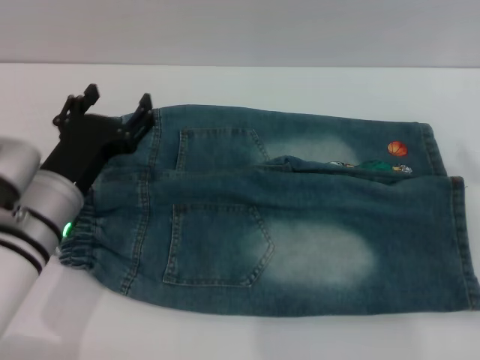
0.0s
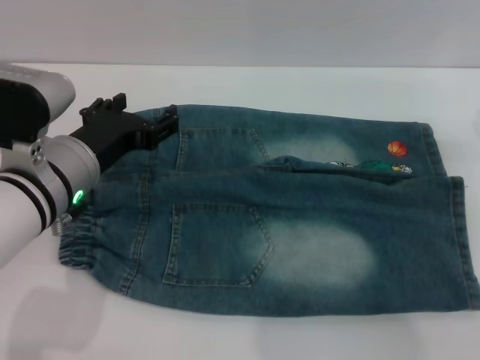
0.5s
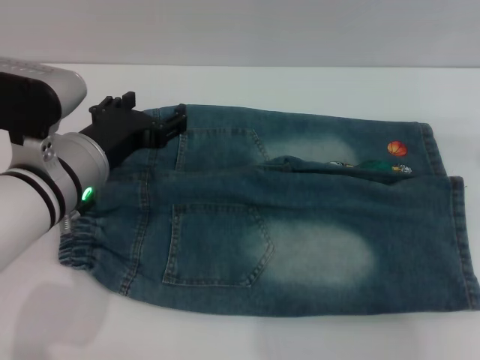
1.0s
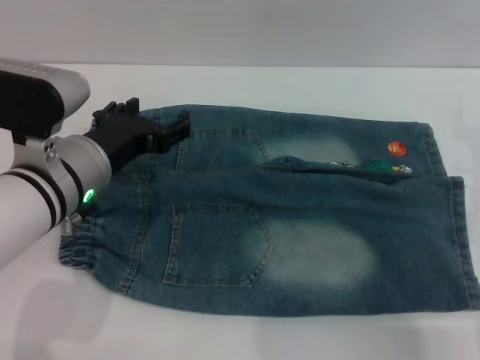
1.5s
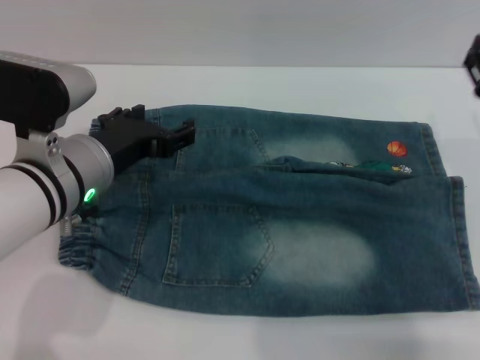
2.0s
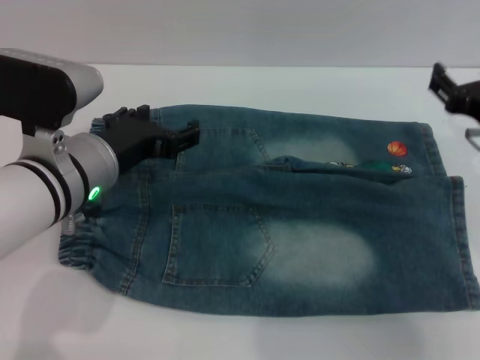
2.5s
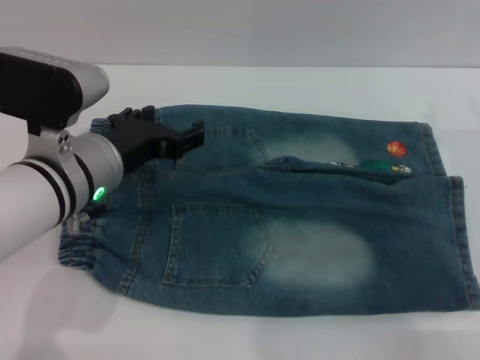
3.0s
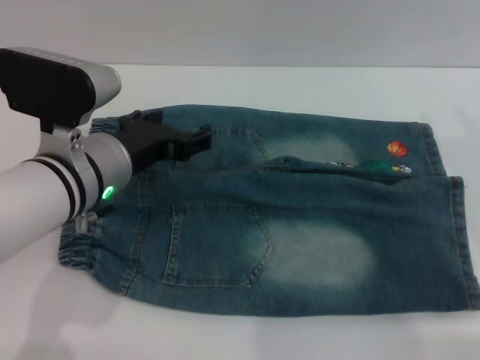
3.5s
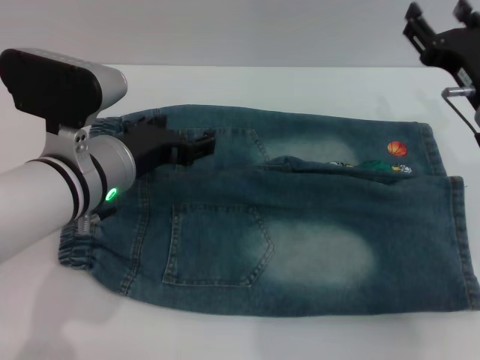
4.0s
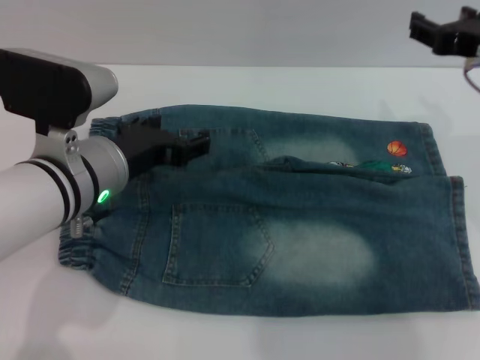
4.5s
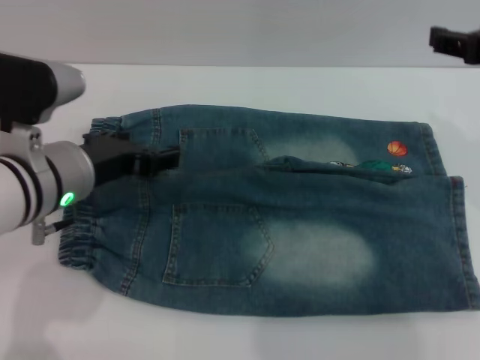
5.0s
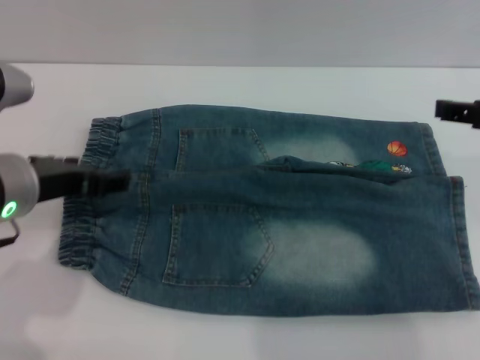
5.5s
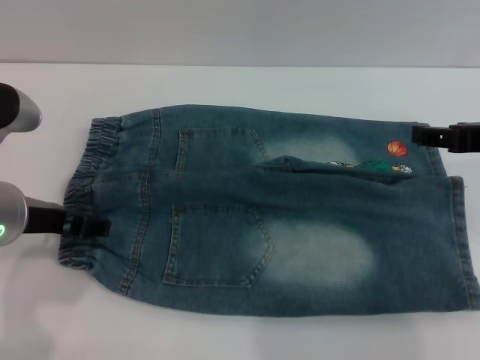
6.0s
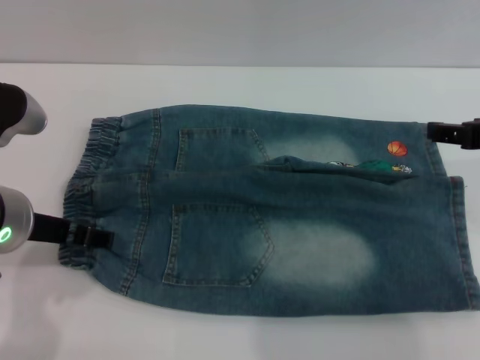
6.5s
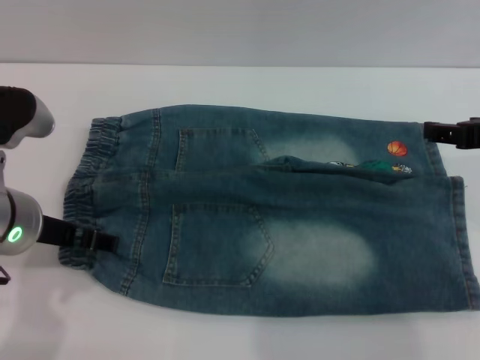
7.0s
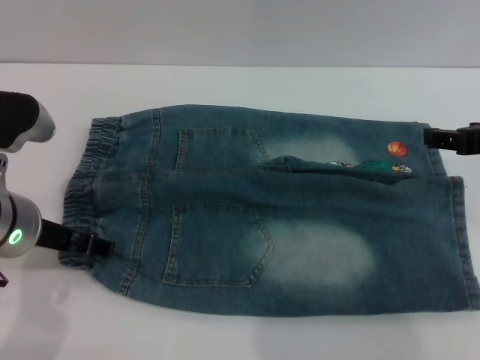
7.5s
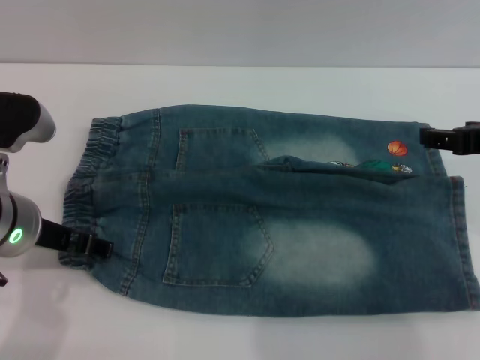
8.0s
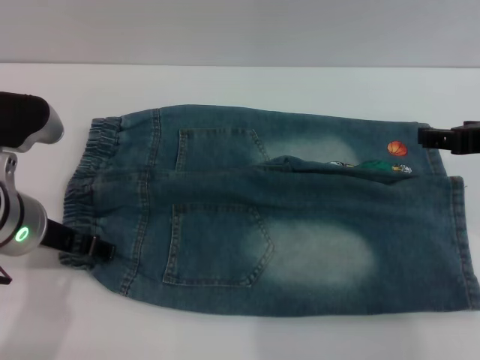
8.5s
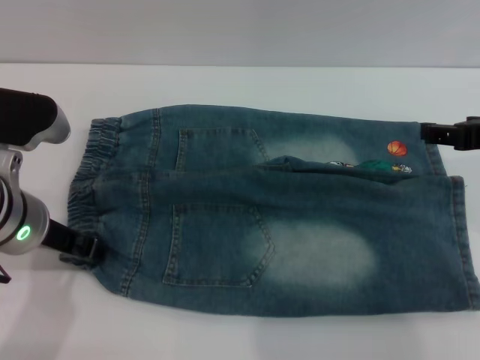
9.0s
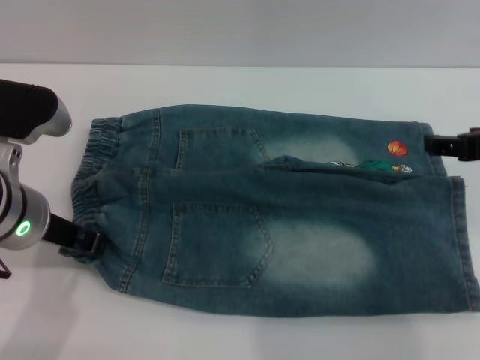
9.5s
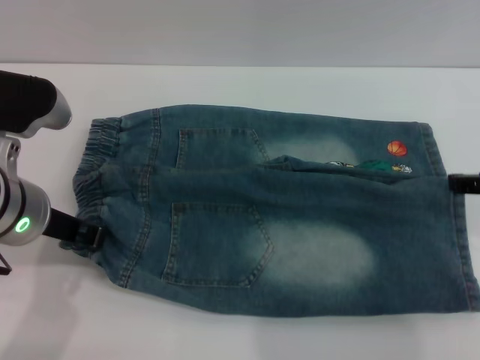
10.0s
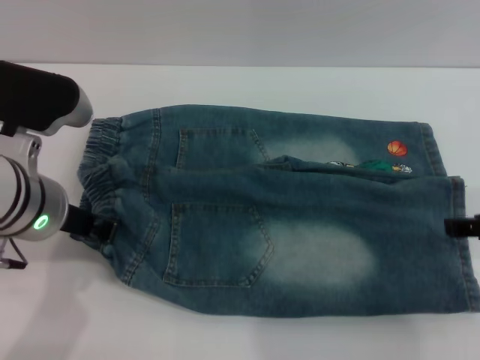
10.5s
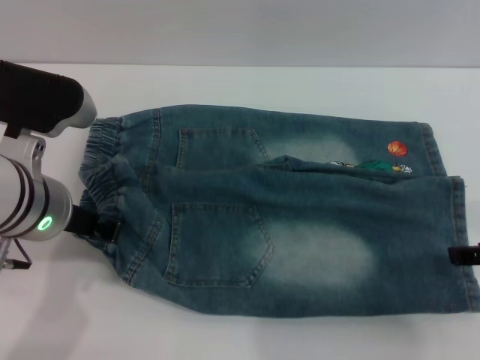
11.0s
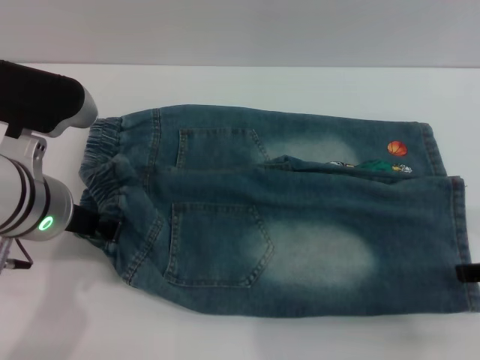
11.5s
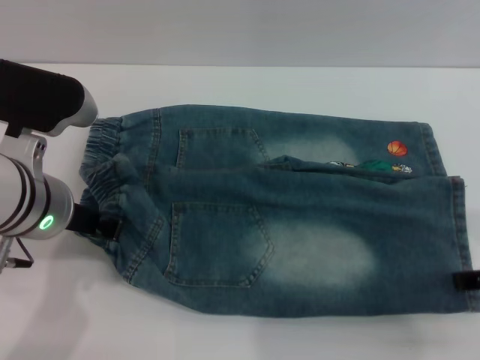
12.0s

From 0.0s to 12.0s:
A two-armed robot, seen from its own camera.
From 0.0s to 2.0s: The left gripper heads upward, covering roughly 5 cm. The right gripper shifts approximately 10 cm to the left.
From 4.0s to 6.0s: The left gripper heads to the left, covering roughly 5 cm, while the right gripper is displaced upward and backward by about 10 cm.
From 6.0s to 8.0s: The grippers move only a little.
From 8.0s to 10.0s: The left gripper closes.
From 10.0s to 12.0s: The right gripper changes place by roughly 5 cm.

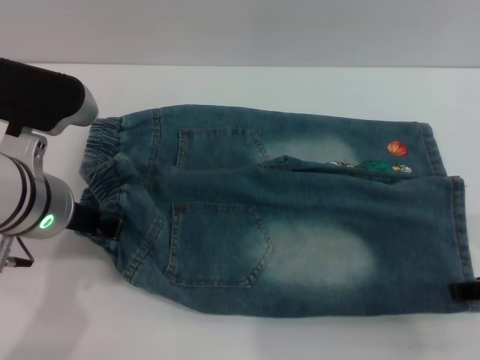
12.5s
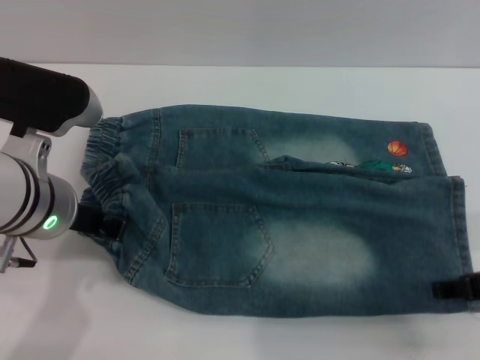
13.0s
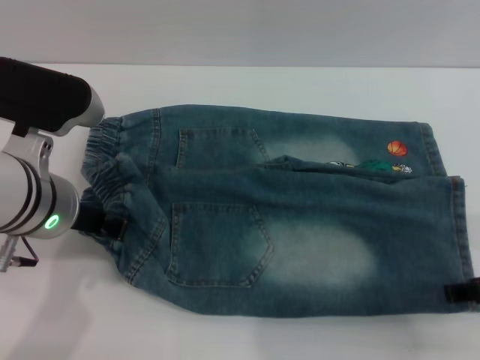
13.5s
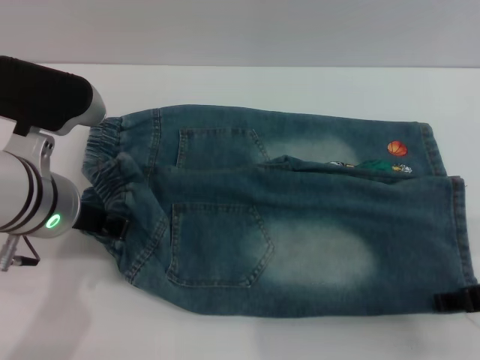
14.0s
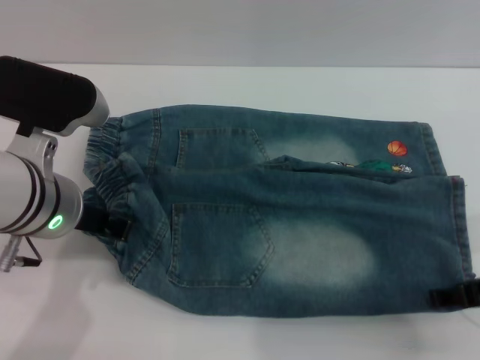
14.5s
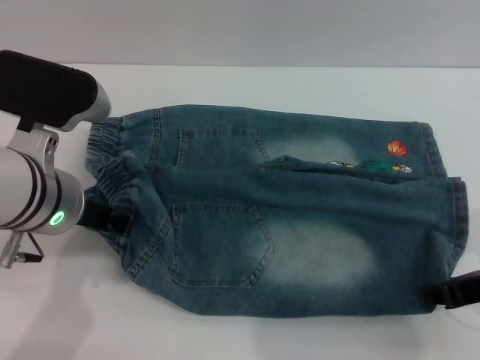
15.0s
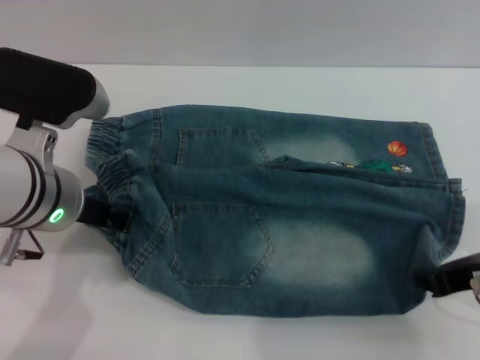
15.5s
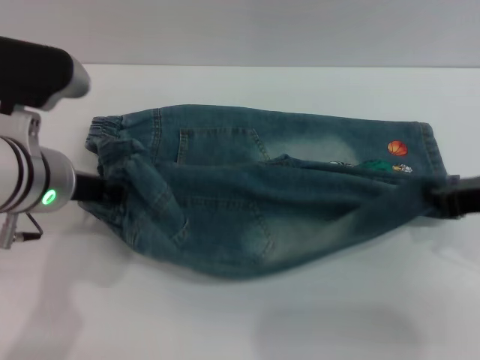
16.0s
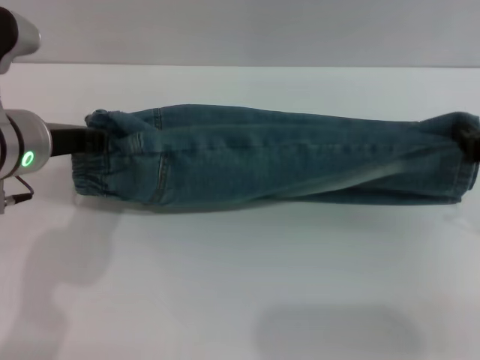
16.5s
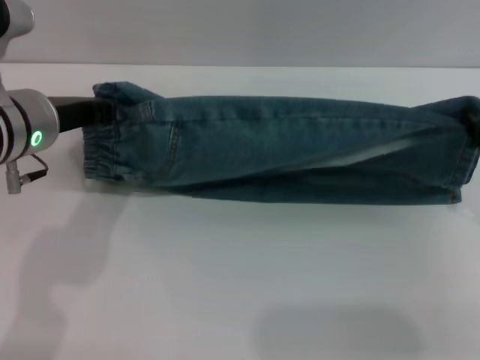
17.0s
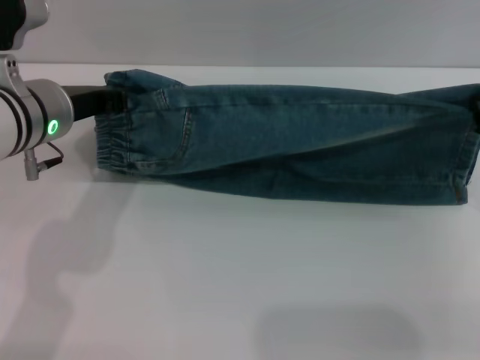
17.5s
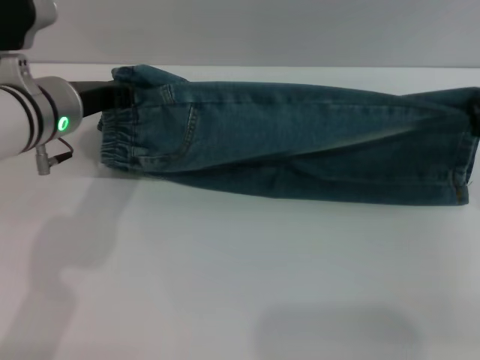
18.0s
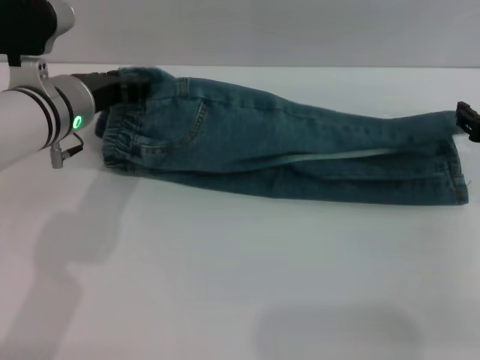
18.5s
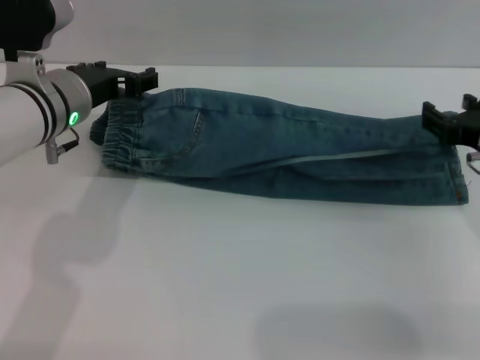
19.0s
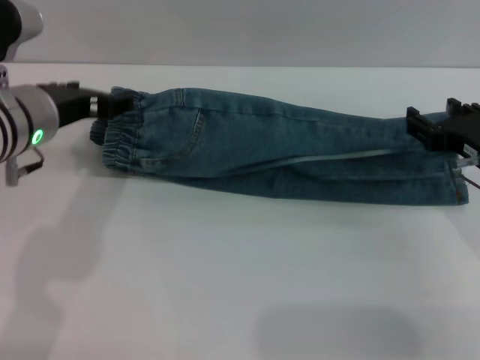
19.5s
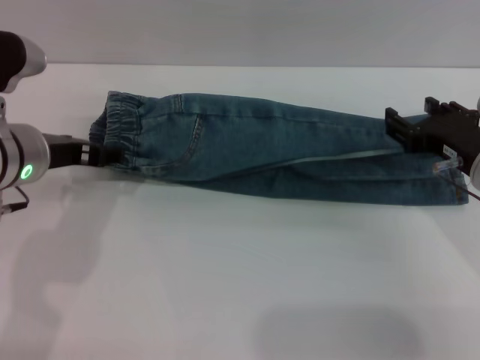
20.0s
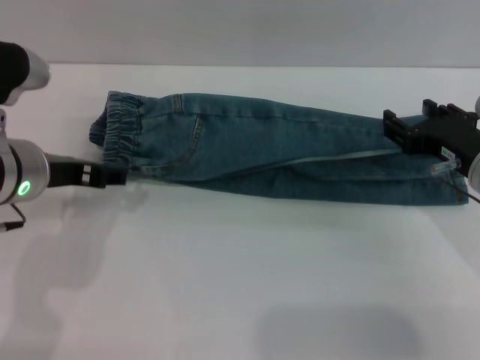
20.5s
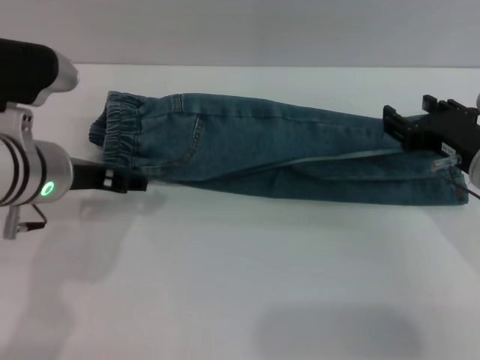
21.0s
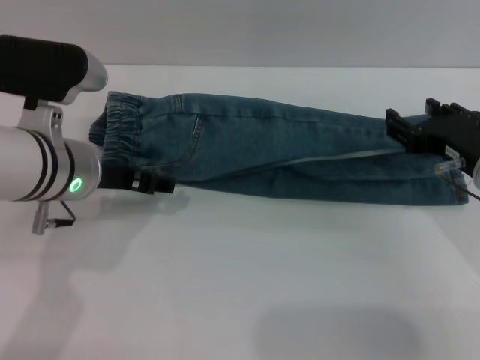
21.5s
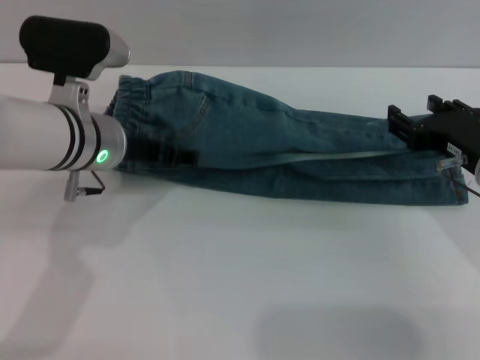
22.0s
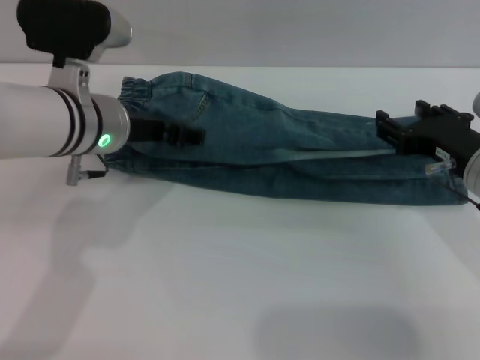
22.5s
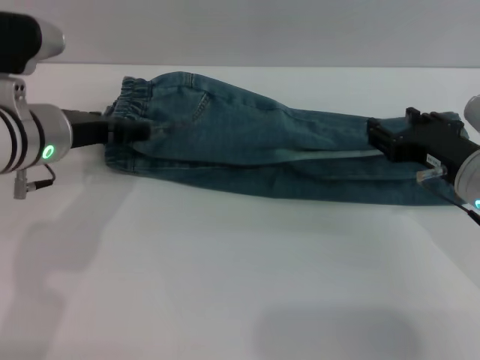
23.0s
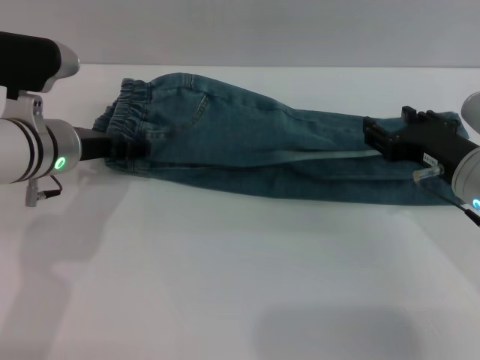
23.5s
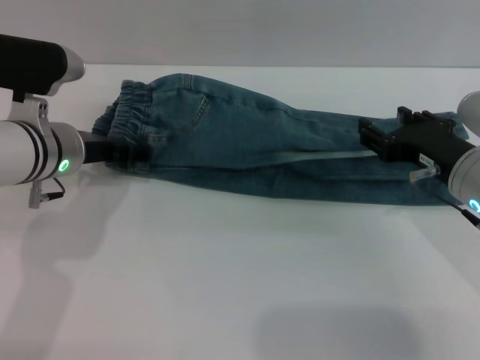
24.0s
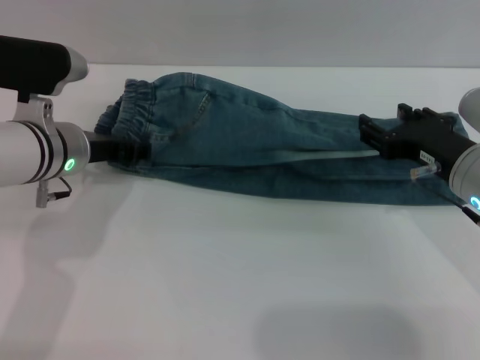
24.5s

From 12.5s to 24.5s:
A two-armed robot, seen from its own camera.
Step, from 12.5s to 19.0s: Fold the bottom of the pants upward with both grippers.
From 12.5s to 14.5s: There are only small adjustments of the grippers.
From 14.5s to 16.5s: The right gripper moves approximately 5 cm, and closes up.
From 16.5s to 18.5s: The left gripper moves forward, roughly 5 cm, and opens its fingers. The right gripper shifts some 5 cm downward.
From 18.5s to 20.5s: The right gripper goes some 5 cm to the left, and opens; the left gripper travels backward by some 5 cm, and opens.
From 20.5s to 22.5s: The left gripper travels forward and to the right by roughly 10 cm.
From 22.5s to 24.5s: The left gripper moves about 5 cm.

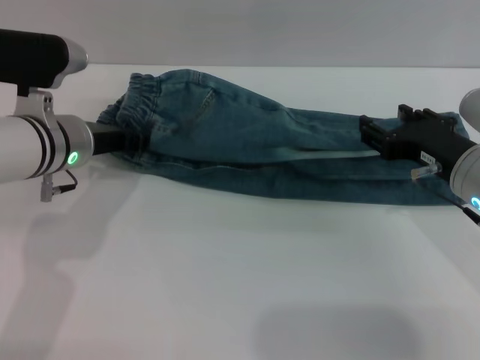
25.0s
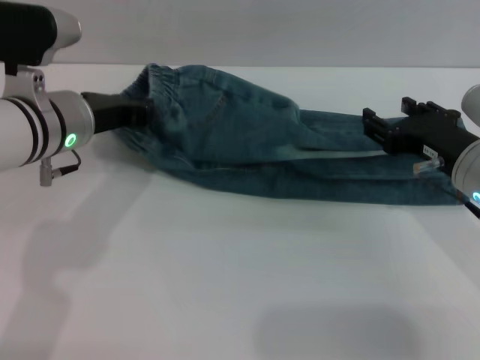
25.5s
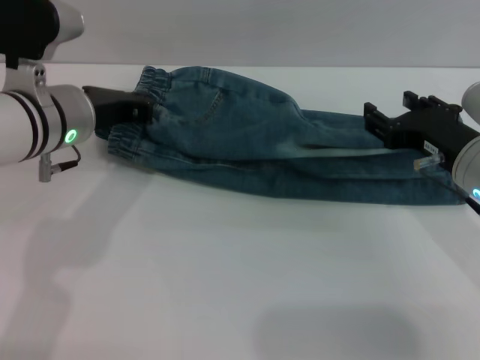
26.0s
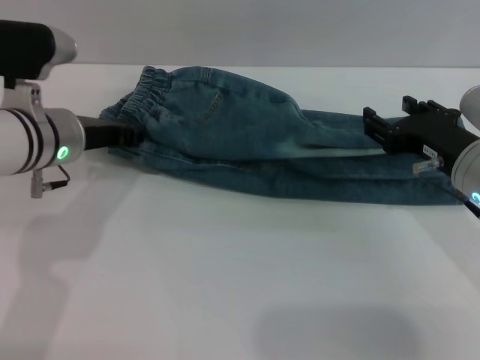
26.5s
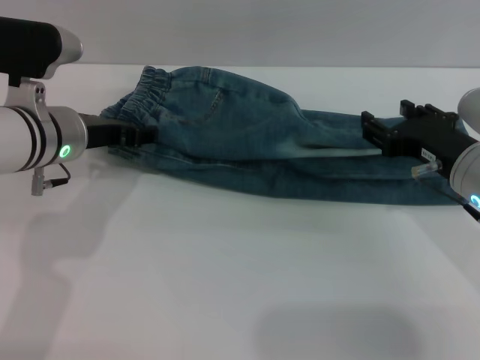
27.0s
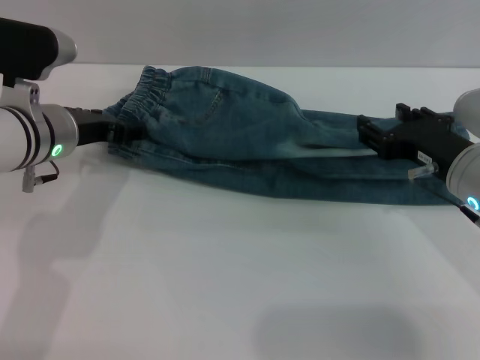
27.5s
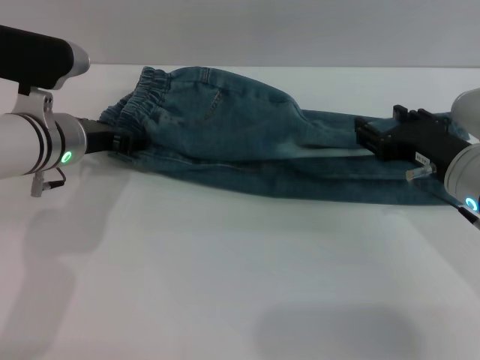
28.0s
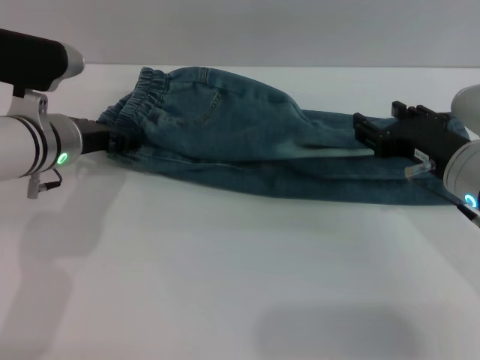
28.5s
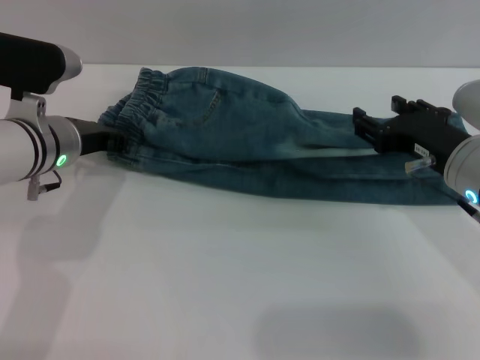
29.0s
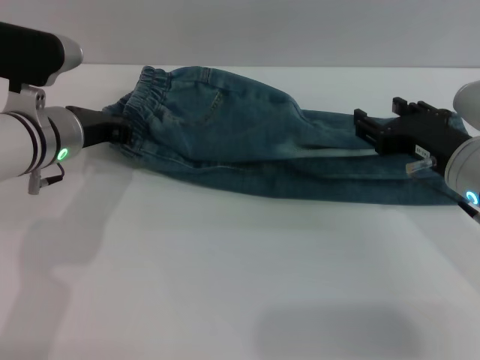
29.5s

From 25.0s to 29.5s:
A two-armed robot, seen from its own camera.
From 25.0s to 27.0s: The left gripper closes and opens again.
From 27.0s to 29.5s: The left gripper closes its fingers.
